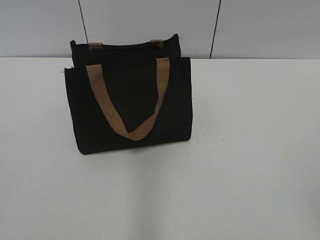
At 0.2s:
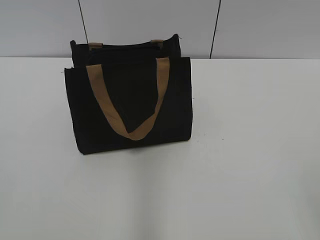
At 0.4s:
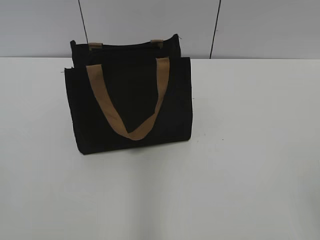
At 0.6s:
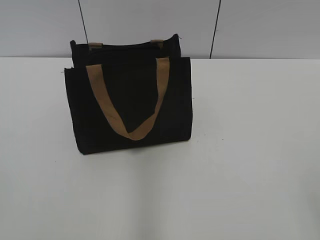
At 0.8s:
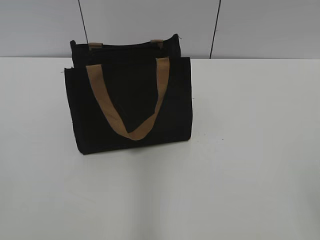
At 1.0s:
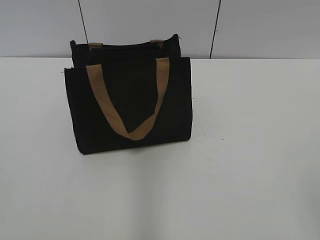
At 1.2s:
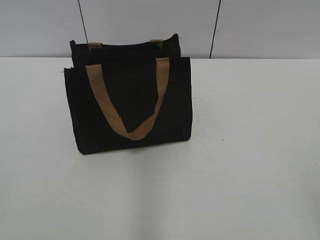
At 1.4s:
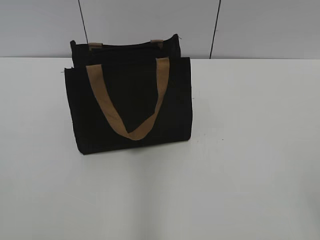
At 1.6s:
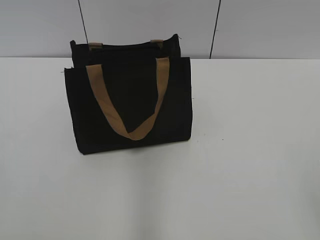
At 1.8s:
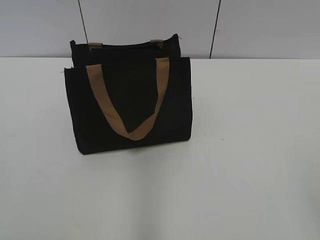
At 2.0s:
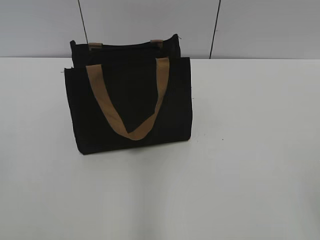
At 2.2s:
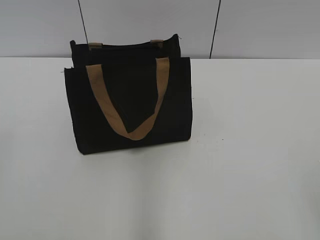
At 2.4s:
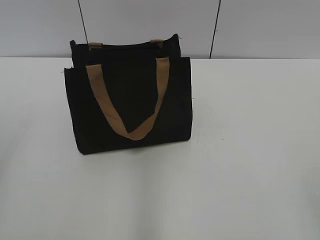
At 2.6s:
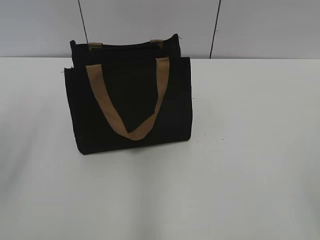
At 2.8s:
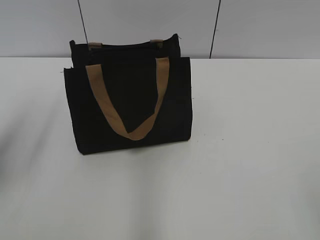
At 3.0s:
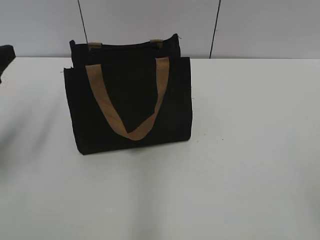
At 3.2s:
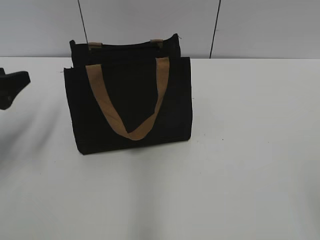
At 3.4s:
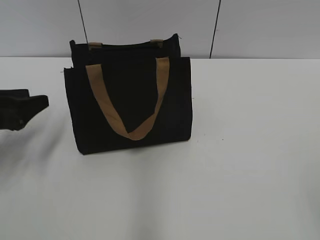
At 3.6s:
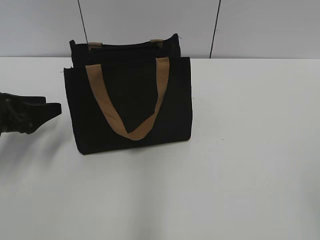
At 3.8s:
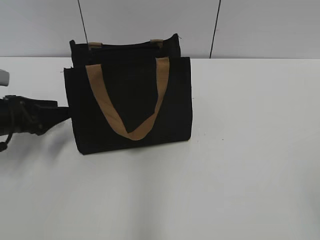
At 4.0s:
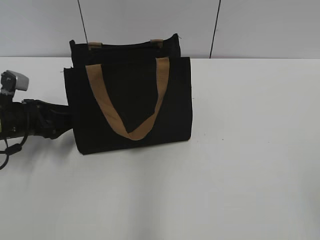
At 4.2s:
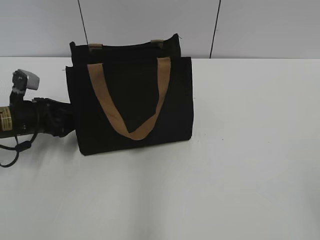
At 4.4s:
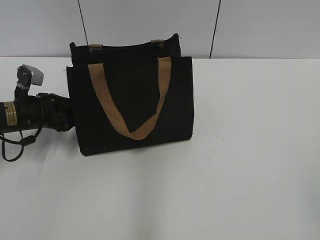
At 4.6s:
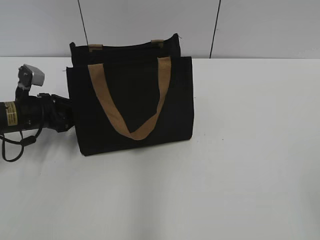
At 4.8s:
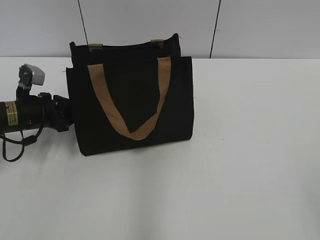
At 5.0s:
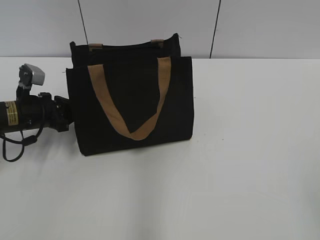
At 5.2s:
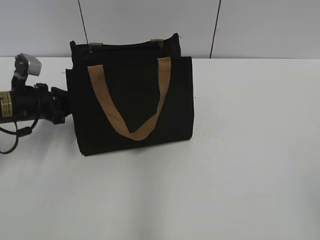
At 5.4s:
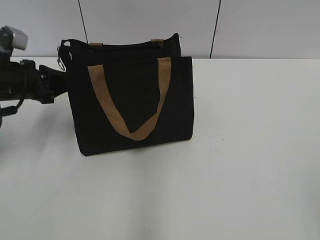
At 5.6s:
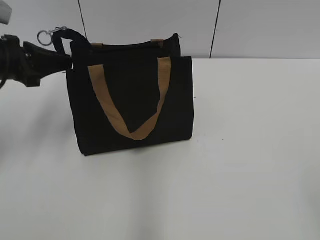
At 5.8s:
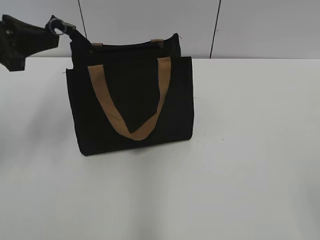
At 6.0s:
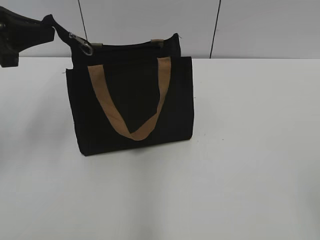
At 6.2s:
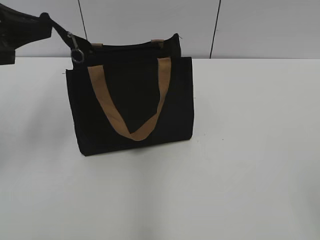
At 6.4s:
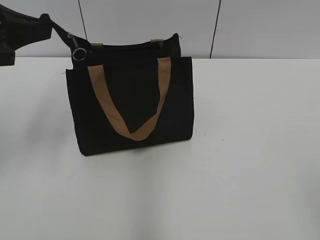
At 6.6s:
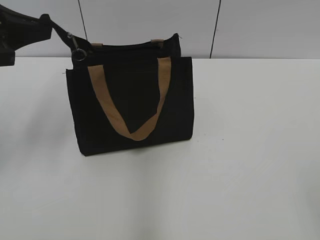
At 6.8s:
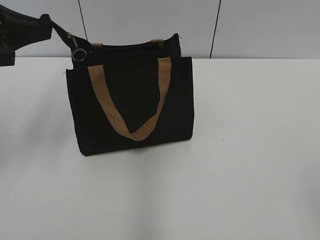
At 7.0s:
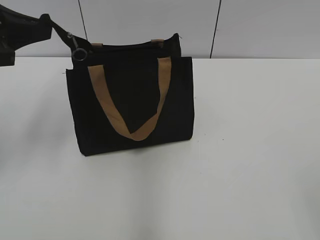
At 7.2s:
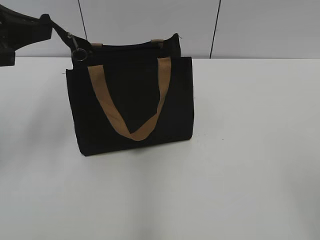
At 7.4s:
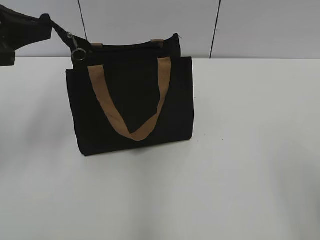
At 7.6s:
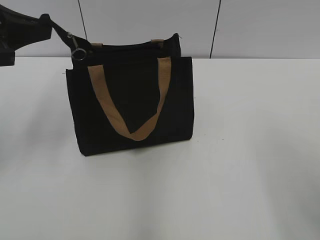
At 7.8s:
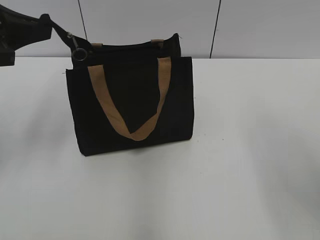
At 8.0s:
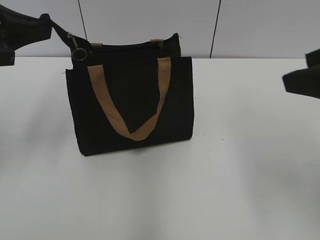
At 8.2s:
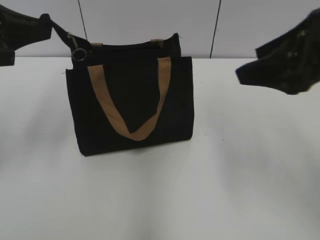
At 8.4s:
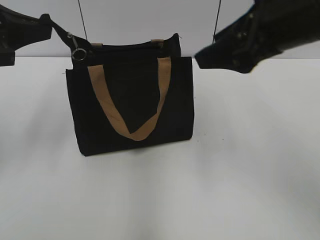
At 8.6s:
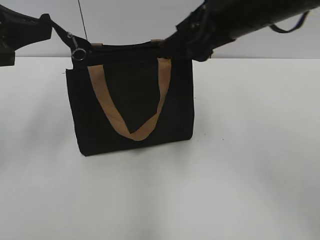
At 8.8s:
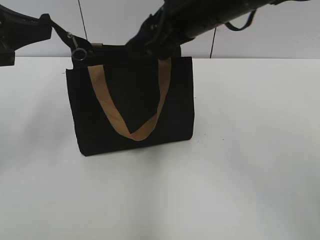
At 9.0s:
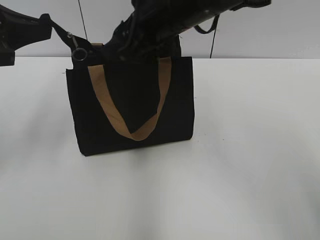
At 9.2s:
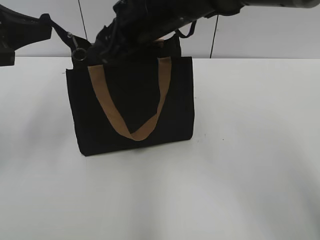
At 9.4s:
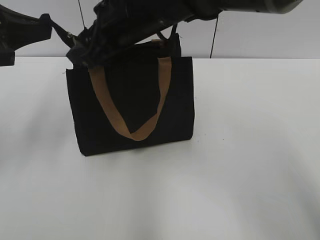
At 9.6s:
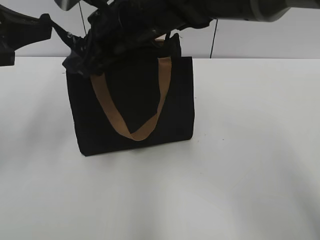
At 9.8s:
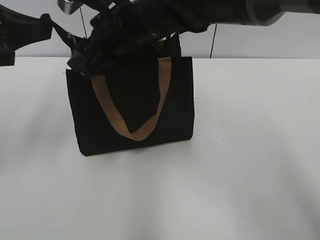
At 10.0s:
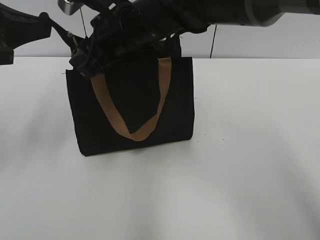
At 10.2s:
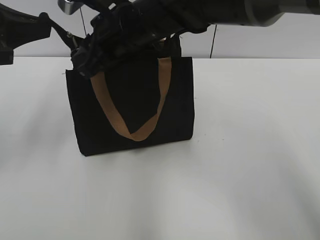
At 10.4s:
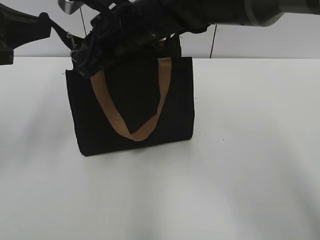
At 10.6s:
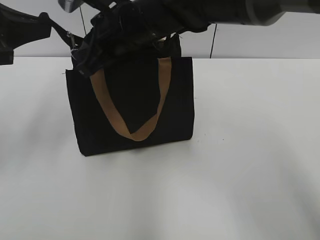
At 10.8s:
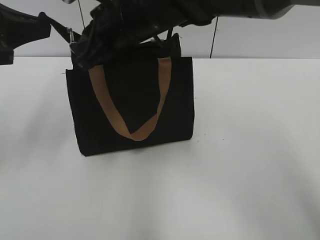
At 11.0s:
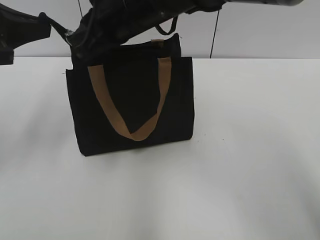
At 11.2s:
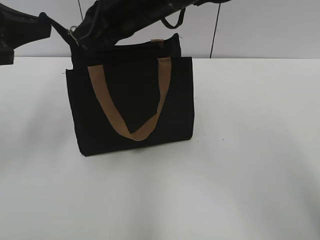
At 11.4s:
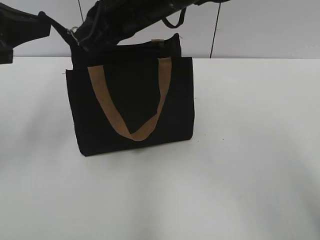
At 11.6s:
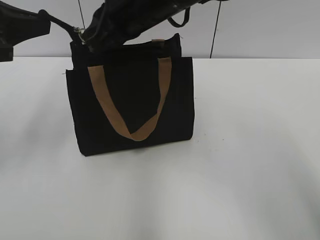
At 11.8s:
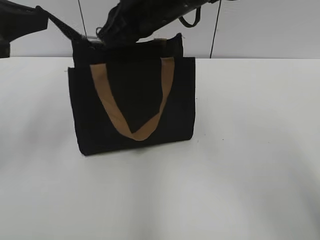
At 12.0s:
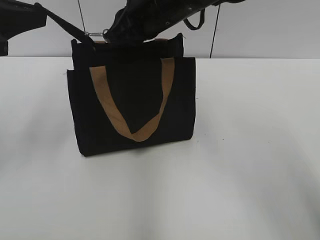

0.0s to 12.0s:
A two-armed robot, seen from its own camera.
1.6s to 3.0s: The left gripper is displaced forward by some 25 cm.
3.0s to 4.4s: The left gripper shifts some 20 cm downward and forward.
4.4s to 6.0s: The left gripper goes some 20 cm upward, and closes its fingers.
7.6s to 9.0s: The right gripper heads forward and to the left, covering about 35 cm.
9.0s to 10.4s: The right gripper moves to the left, roughly 5 cm, and closes its fingers.
10.4s to 12.0s: The right gripper ends up about 5 cm from where it was.

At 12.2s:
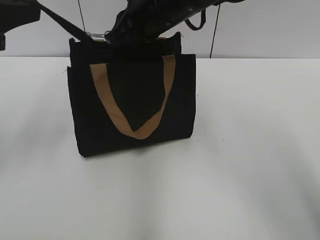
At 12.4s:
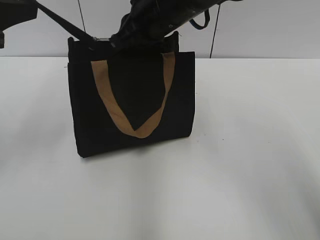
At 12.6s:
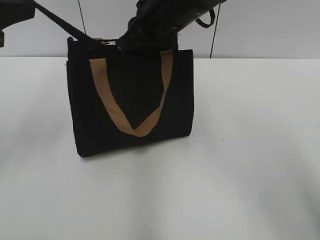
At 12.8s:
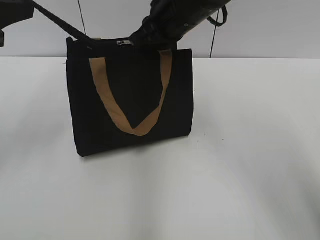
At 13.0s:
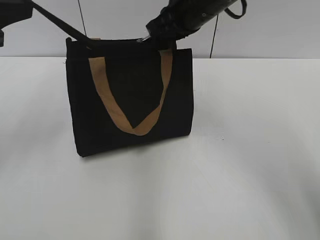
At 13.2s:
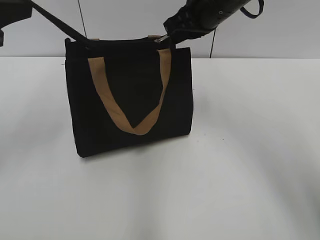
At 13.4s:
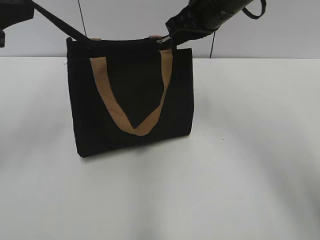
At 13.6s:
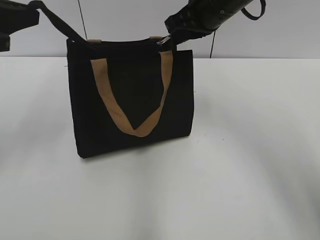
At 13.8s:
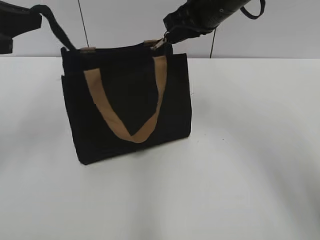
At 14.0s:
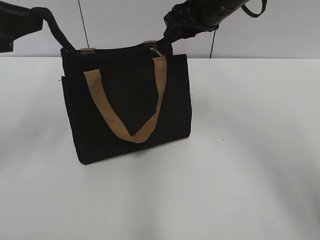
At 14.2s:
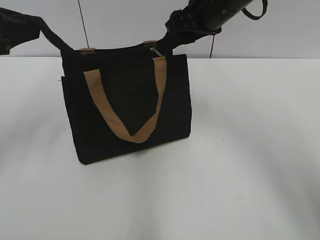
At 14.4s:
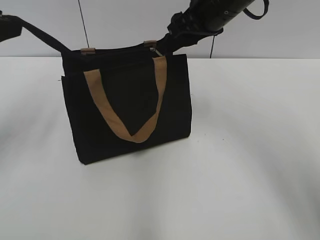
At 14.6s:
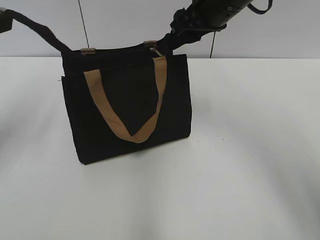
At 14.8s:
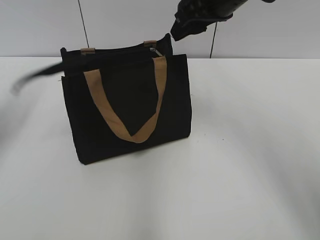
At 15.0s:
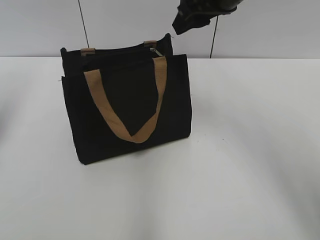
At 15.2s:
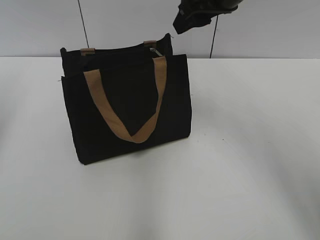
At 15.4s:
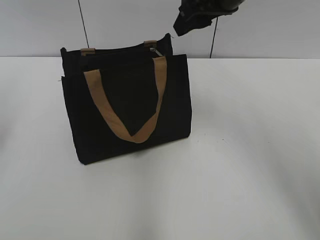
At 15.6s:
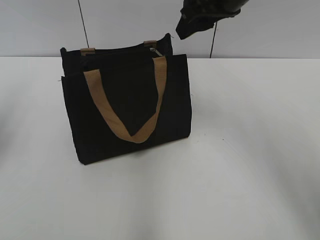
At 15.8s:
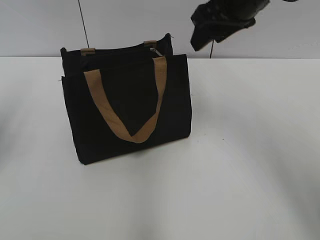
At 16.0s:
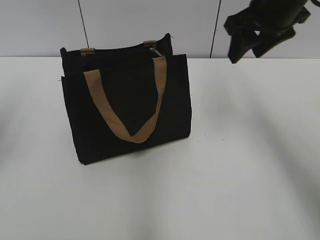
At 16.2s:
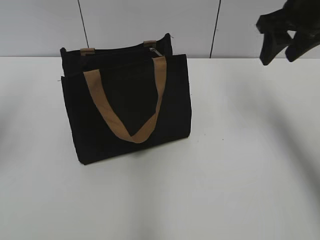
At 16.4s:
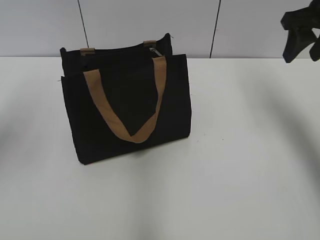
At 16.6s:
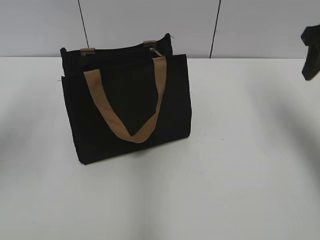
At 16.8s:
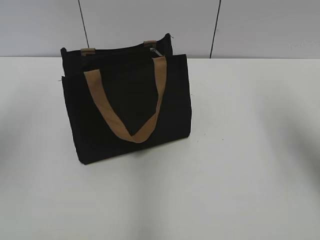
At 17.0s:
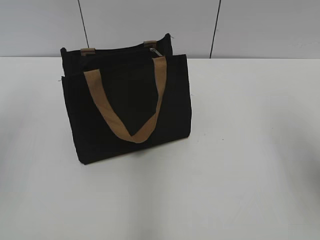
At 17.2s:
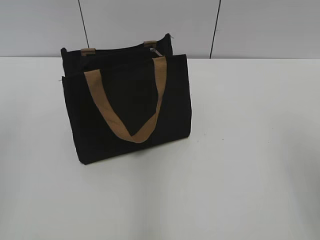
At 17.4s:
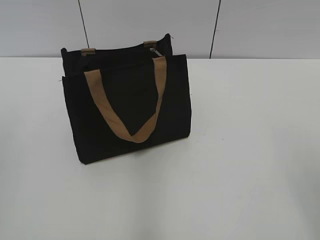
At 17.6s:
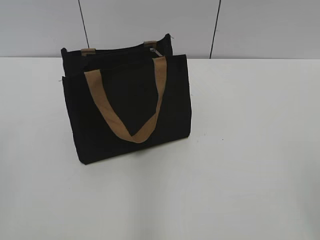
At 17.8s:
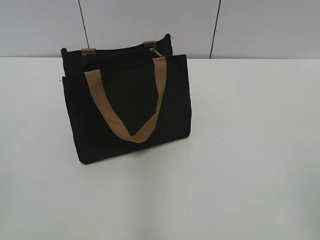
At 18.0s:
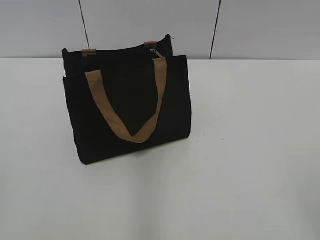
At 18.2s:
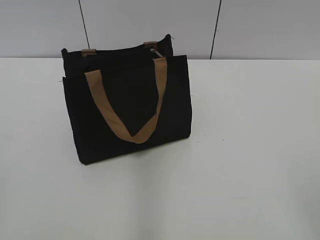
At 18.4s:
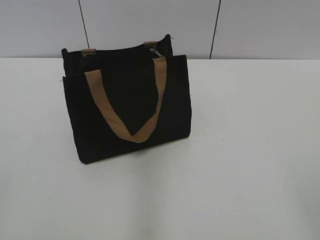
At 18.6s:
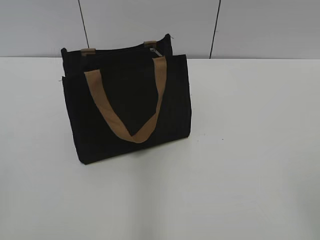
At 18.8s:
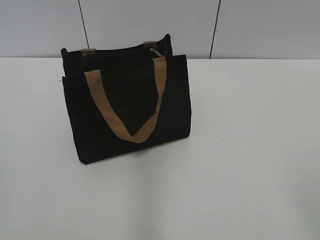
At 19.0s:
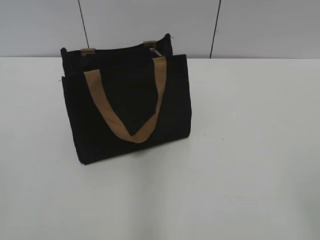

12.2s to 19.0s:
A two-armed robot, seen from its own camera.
Step, 14.0s to 14.8s: Grab the zipper with your left hand.
12.2s to 13.6s: The right gripper shifts roughly 10 cm to the right.
13.6s to 15.0s: The left gripper travels to the left by about 5 cm, and opens its fingers. Meanwhile the right gripper opens.
15.0s to 16.2s: The right gripper goes some 10 cm to the right.
16.2s to 17.6s: The right gripper shifts approximately 35 cm backward. Meanwhile the left gripper travels backward by approximately 20 cm.

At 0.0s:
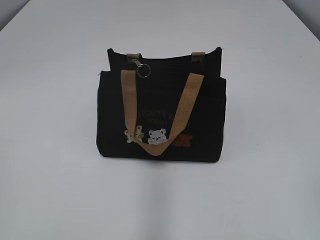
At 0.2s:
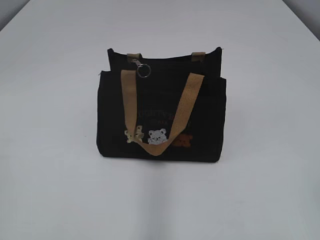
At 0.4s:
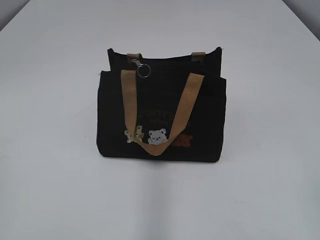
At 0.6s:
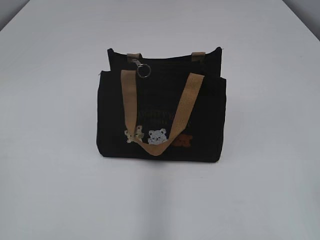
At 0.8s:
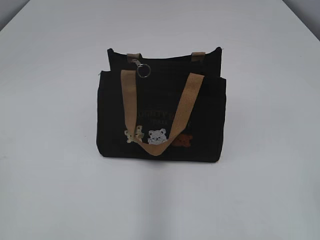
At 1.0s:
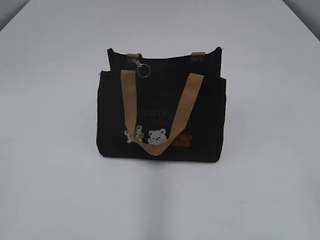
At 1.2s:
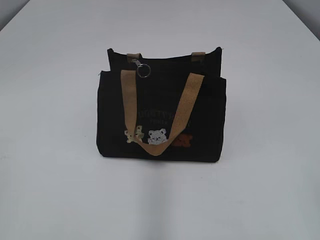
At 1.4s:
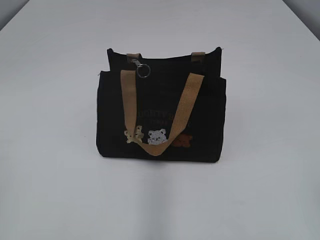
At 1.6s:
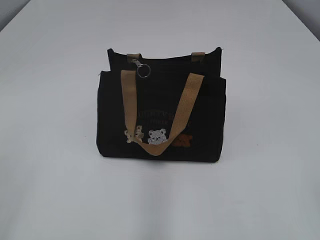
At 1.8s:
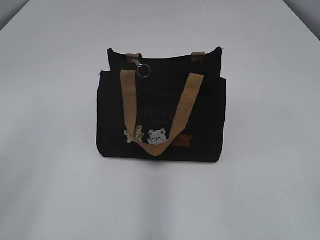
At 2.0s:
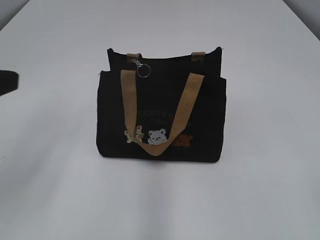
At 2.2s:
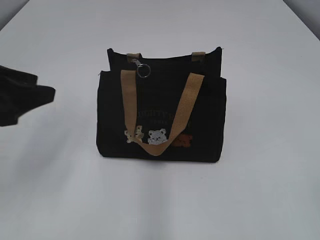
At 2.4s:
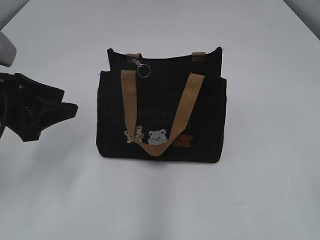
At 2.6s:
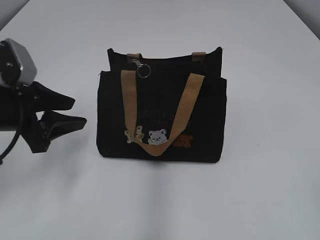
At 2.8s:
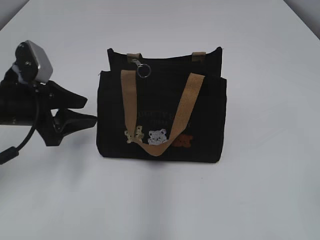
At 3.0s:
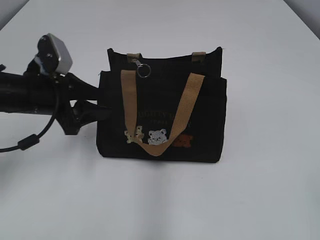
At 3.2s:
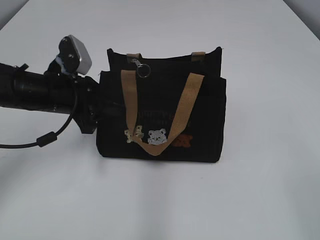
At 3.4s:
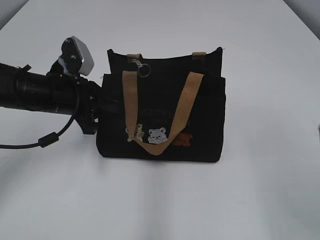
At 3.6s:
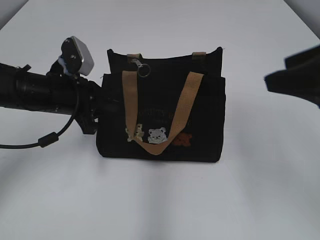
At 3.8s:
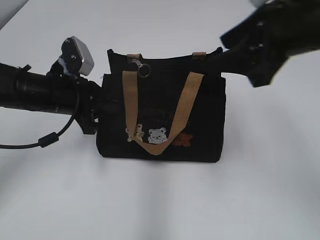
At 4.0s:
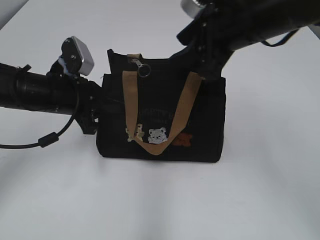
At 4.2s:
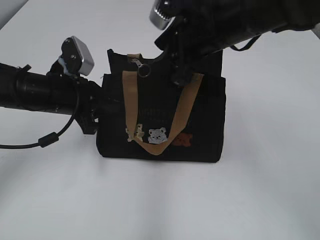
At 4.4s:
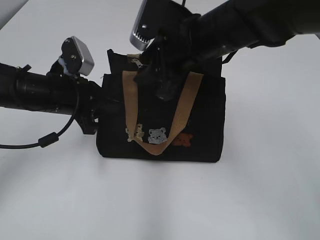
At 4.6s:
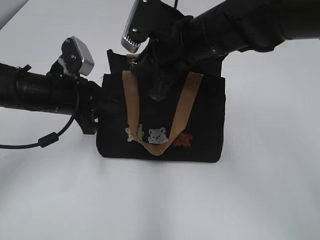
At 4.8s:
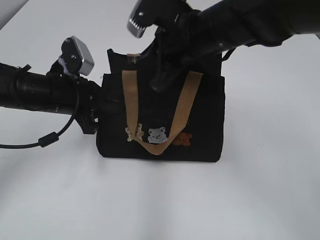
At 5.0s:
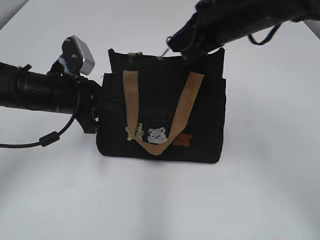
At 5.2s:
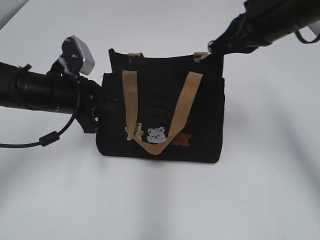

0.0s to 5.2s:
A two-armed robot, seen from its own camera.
1.8s to 3.4s: The left gripper heads forward, downward and to the right, covering about 30 cm, and closes; the right gripper heads forward, covering about 10 cm.
3.4s to 5.2s: The right gripper heads forward, covering roughly 25 cm, and closes.
